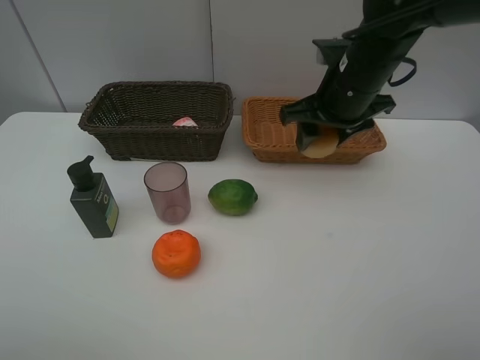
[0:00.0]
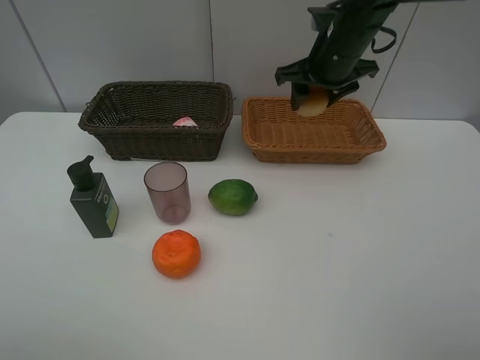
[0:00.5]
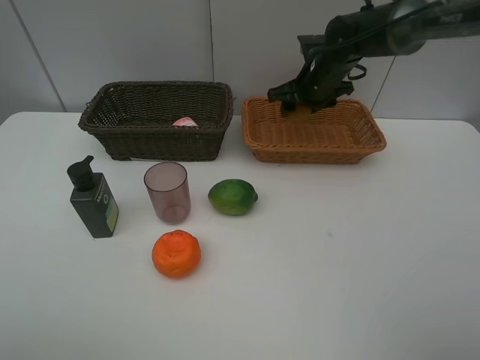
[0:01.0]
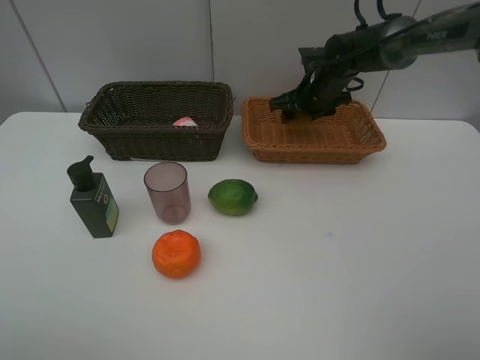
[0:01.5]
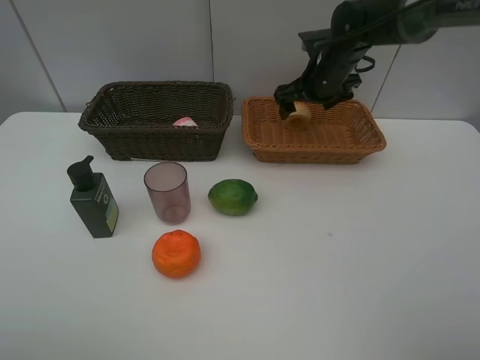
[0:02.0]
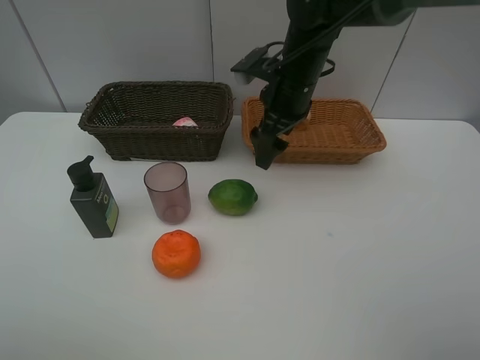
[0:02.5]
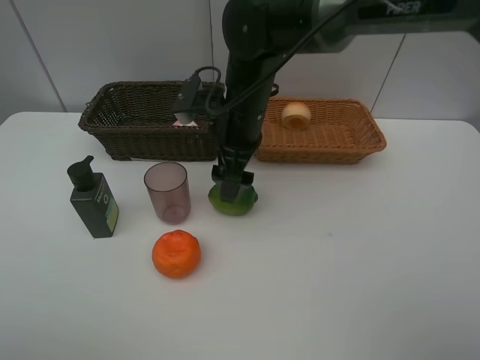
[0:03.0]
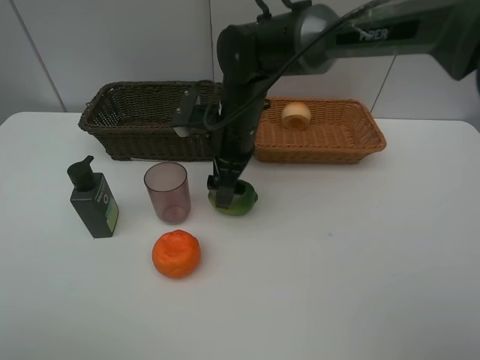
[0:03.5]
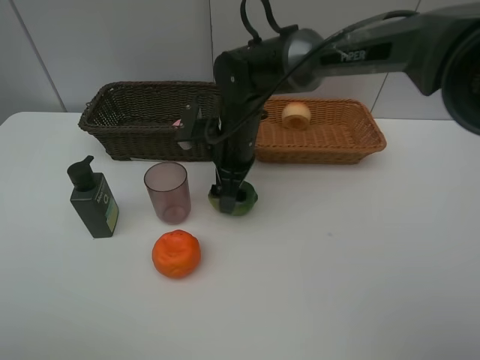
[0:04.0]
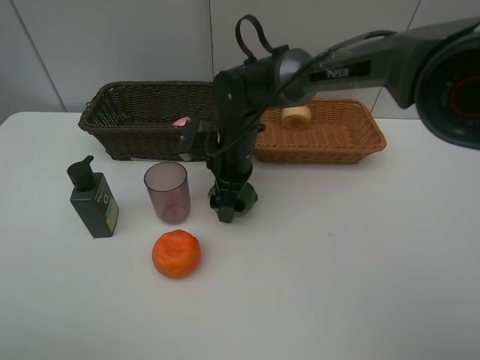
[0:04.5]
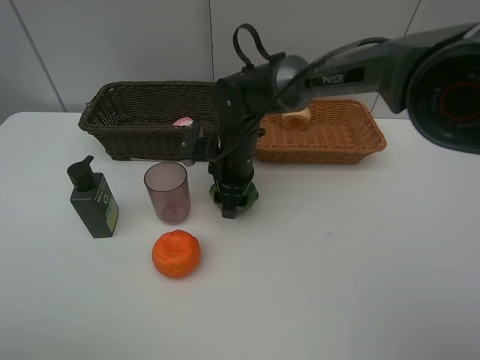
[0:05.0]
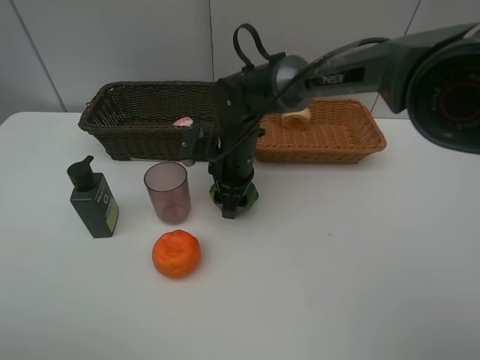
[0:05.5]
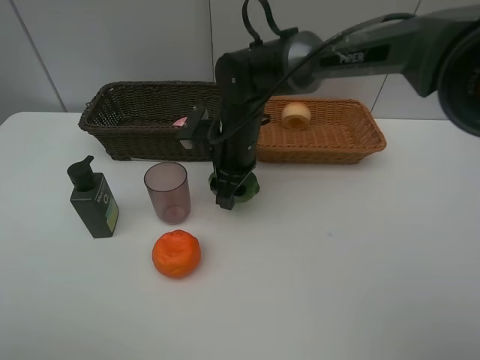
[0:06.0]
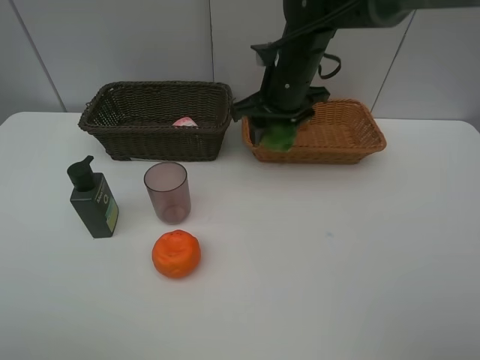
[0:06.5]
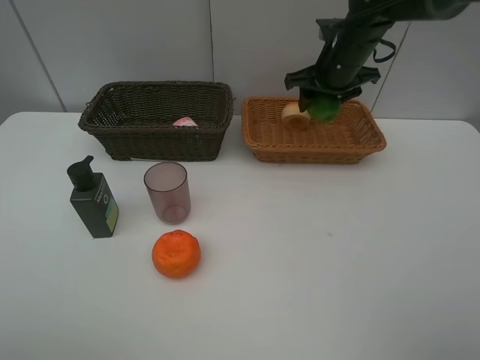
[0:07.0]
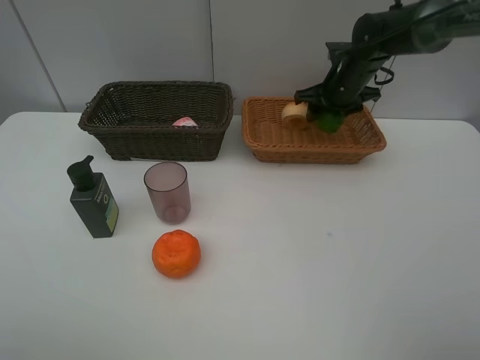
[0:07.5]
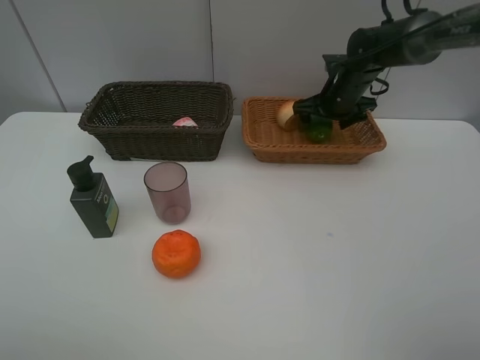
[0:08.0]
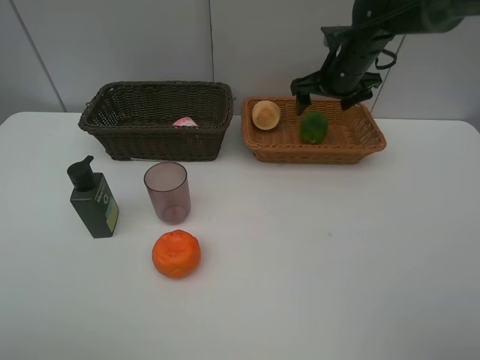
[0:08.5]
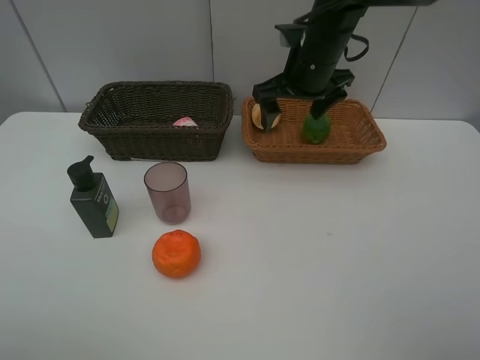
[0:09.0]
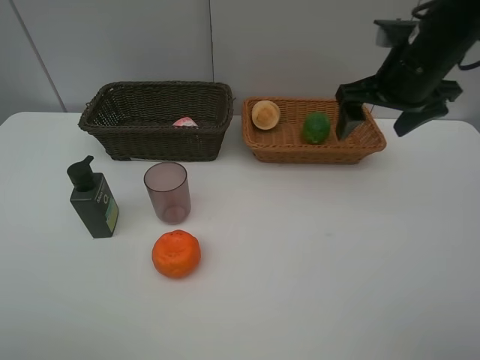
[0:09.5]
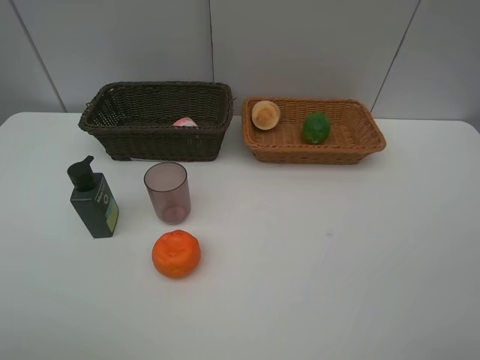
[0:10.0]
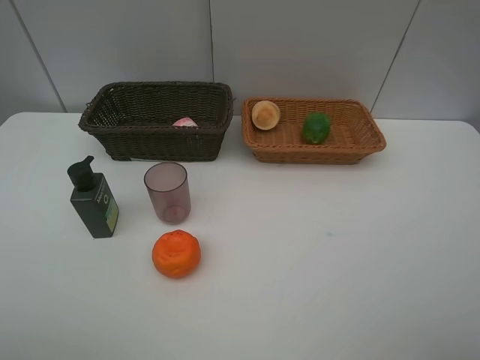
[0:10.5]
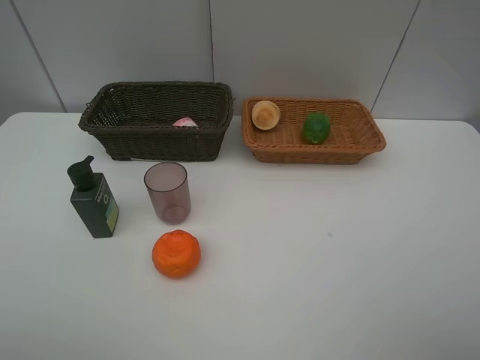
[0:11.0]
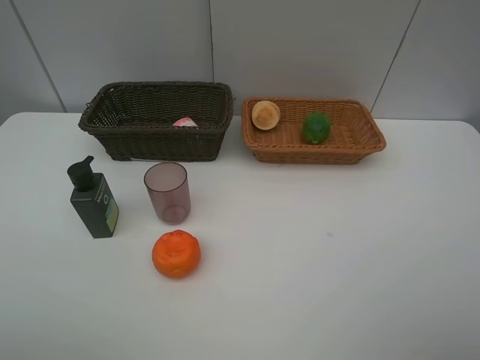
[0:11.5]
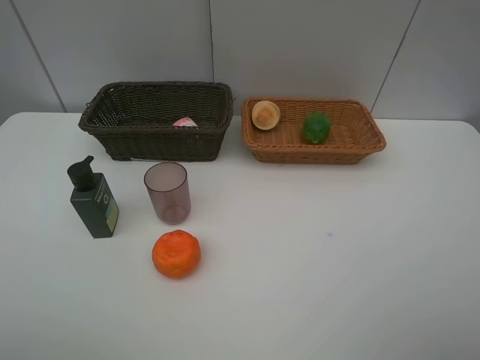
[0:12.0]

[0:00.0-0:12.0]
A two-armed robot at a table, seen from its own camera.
Task of the whole recording: place multiple objects separately in different baskets.
Step, 0:00.0 to 0:02.0: Place the bread in the light basket with right gripper.
Step, 0:02.5 to 0:06.0: Pick up the lime with right gripper.
Step, 0:06.5 to 0:08.5: Place the lime in the light basket with right gripper.
0:00.0 to 0:02.0: The right gripper goes approximately 10 cm forward, and opens up.
0:02.0 to 0:04.0: The right gripper shifts roughly 20 cm to the left, backward and downward.
0:04.0 to 0:06.0: The right gripper closes its fingers.
0:06.0 to 0:08.0: The right gripper moves to the right and forward, roughly 25 cm, and opens its fingers.
0:08.0 to 0:10.0: The right gripper moves backward and upward, approximately 40 cm.

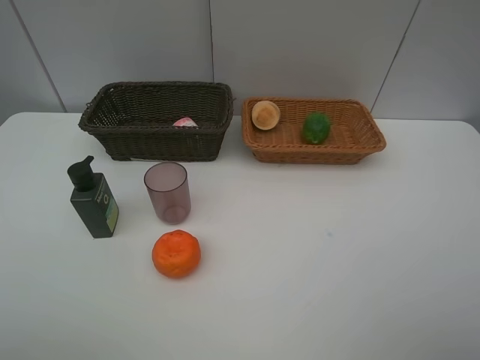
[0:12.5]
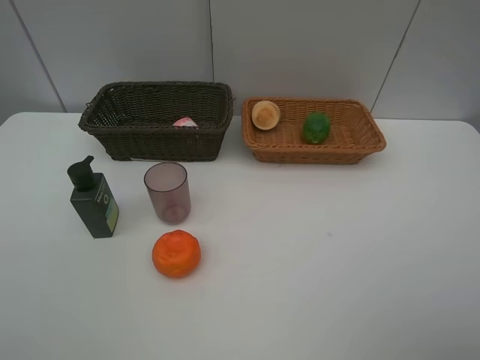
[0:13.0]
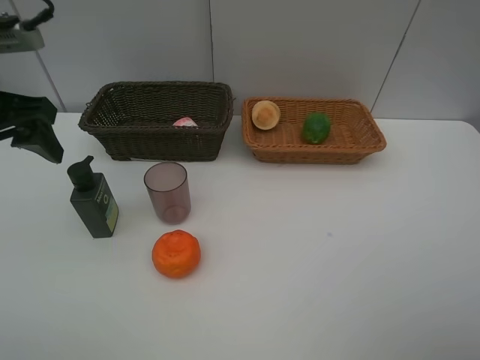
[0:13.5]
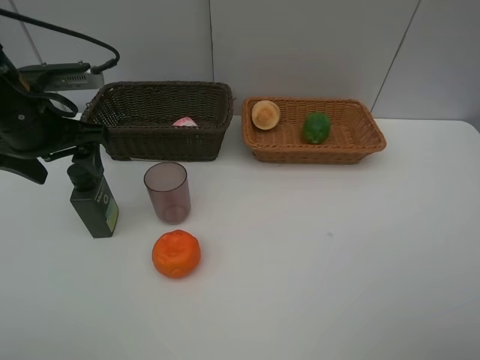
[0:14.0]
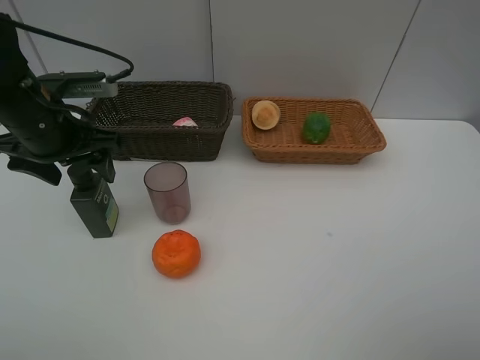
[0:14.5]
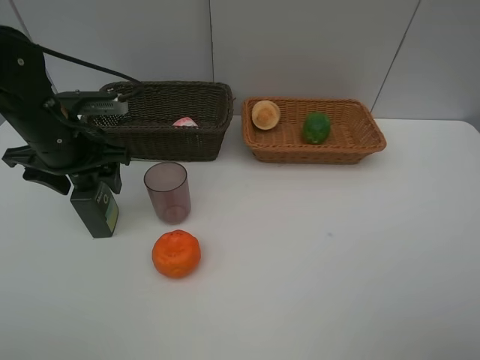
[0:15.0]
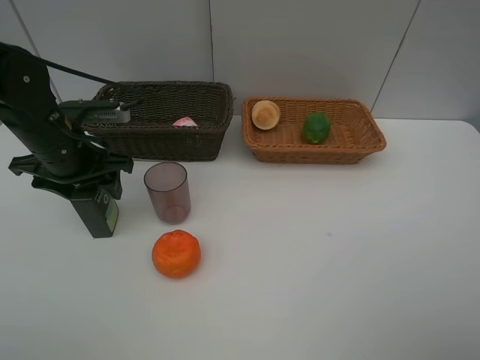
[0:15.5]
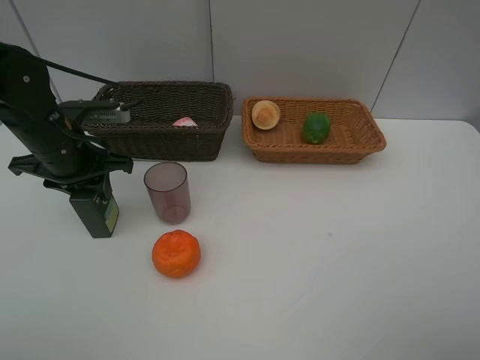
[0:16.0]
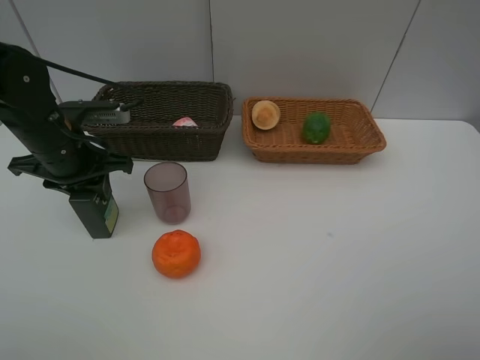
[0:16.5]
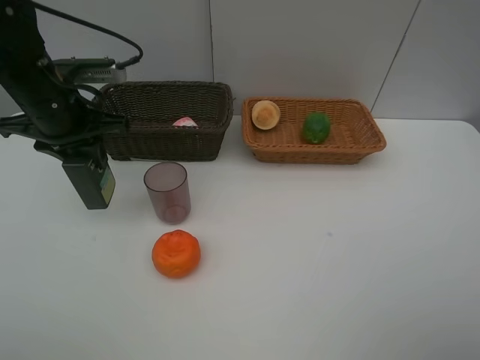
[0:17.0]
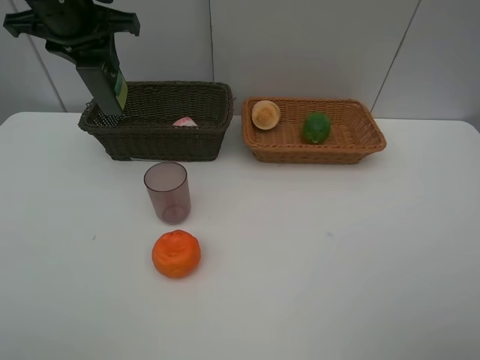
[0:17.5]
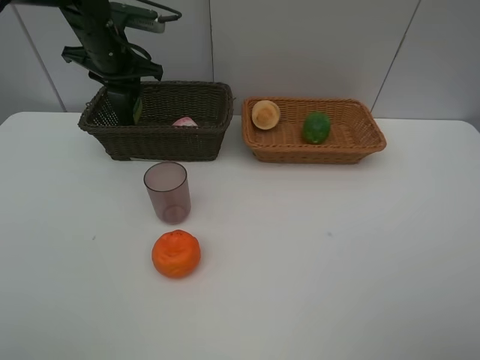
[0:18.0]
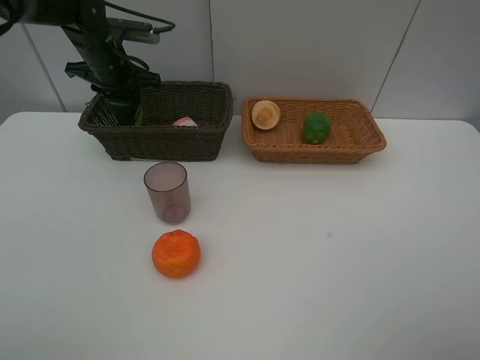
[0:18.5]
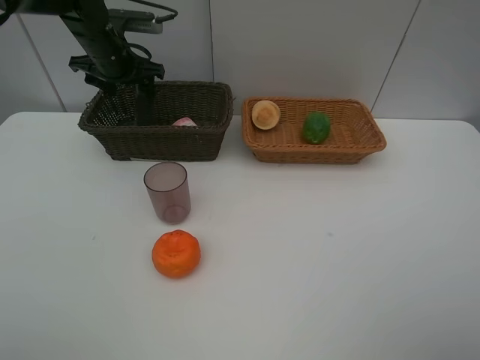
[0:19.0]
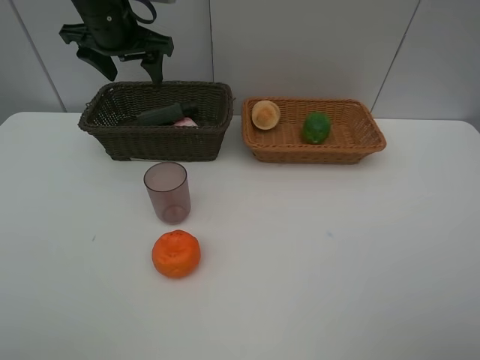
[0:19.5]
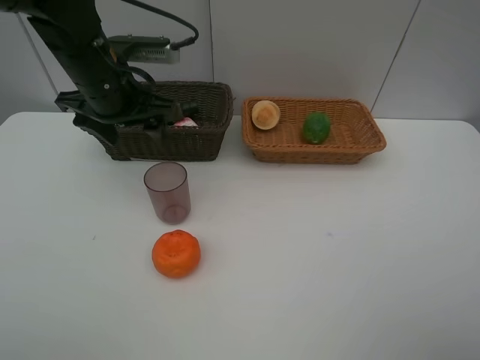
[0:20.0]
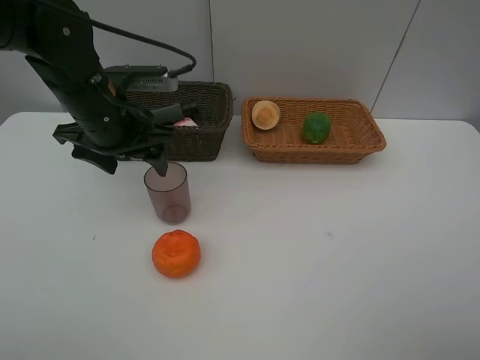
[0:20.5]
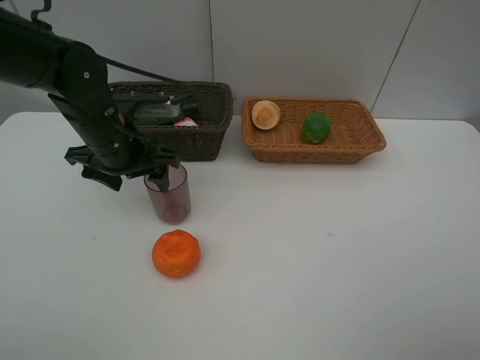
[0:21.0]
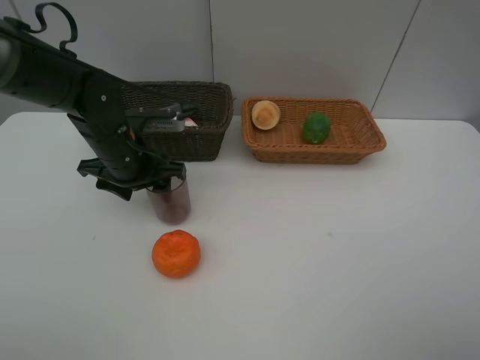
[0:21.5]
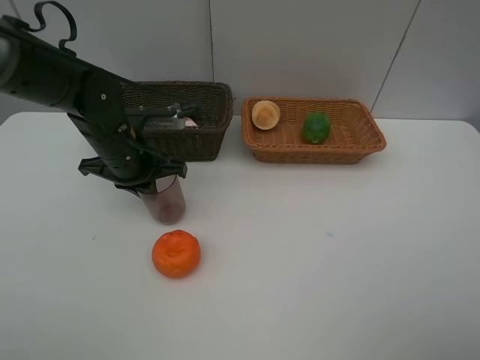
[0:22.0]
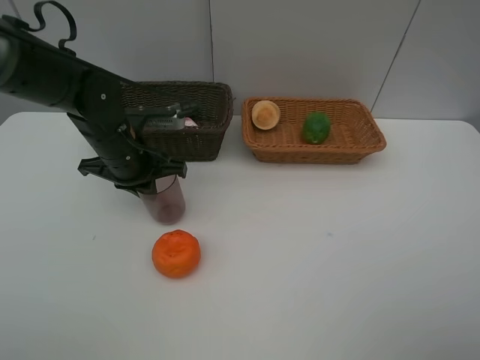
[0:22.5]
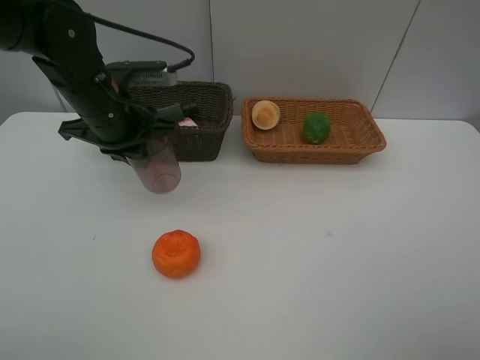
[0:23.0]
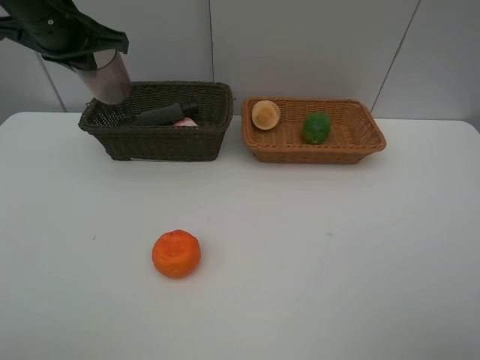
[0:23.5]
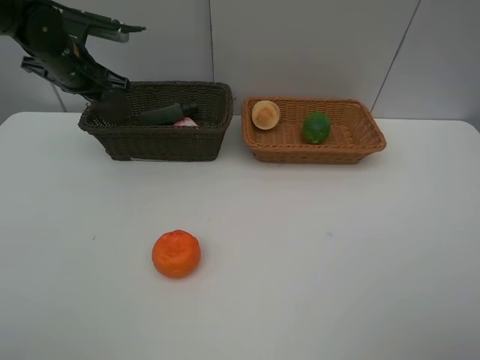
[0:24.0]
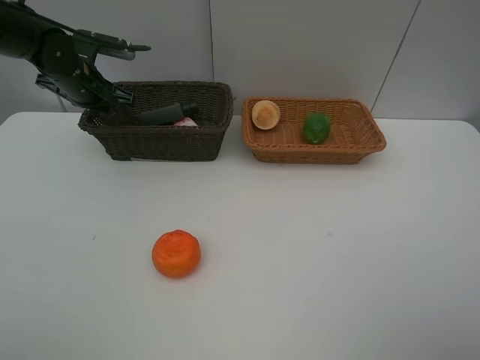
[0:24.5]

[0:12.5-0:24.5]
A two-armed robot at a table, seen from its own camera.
Task of the whole recording: place multiple objects separately in different baskets.
Step, 0:12.5 to 0:16.5: Pick up the facial cleanser with left gripper.
Step, 0:17.0 to 0:19.0: Place the facial cleanser in the dark basket with left gripper.
Step, 0:19.5 to 0:22.5: Pick up the brown cup with left gripper.
0:12.5 to 0:14.5: The left gripper is displaced forward by about 30 cm.
0:14.5 to 0:16.5: The left gripper closes up.
0:16.5 to 0:18.5: The left gripper shifts approximately 20 cm forward.
0:18.5 to 0:20.5: The left gripper shifts some 20 cm backward, and opens up.
0:20.5 to 0:22.5: The left gripper travels downward by some 5 cm, and closes.
0:22.5 to 0:24.5: The left gripper heads forward and to the left, covering about 15 cm, and travels upward and back again, about 15 cm each way.

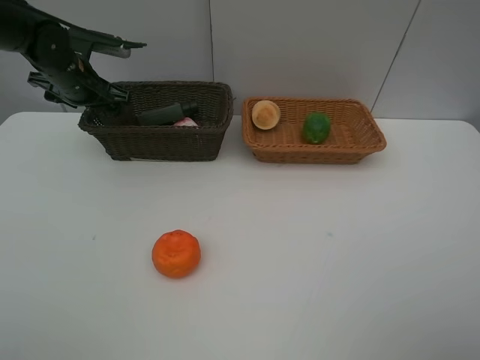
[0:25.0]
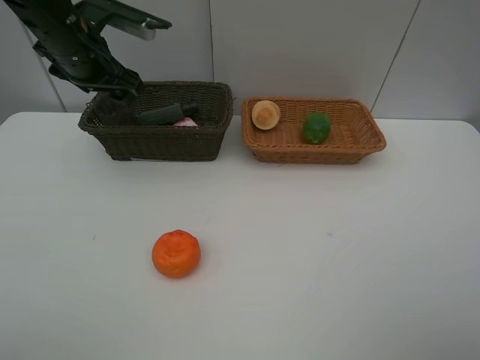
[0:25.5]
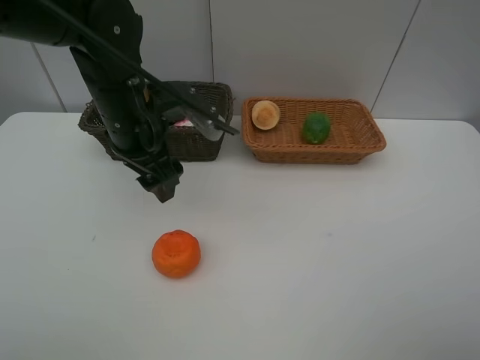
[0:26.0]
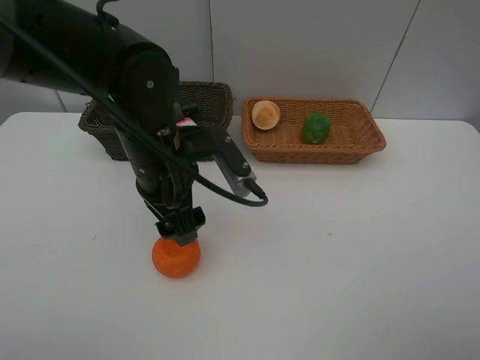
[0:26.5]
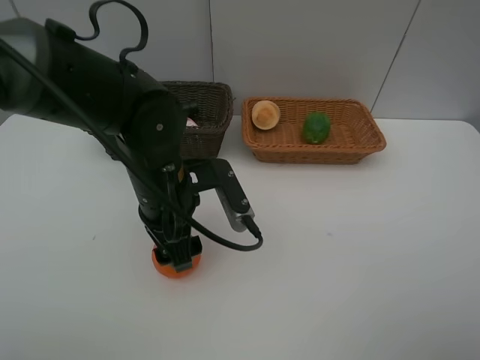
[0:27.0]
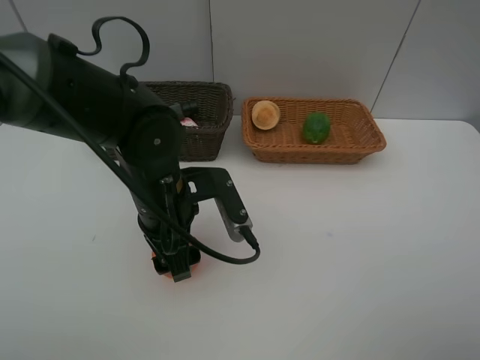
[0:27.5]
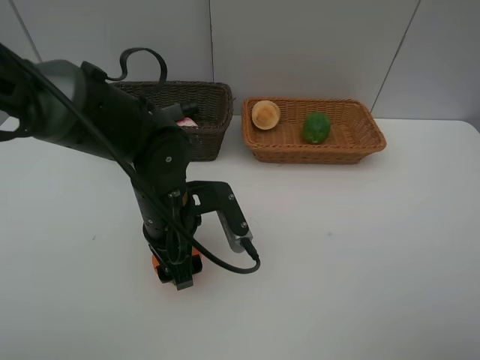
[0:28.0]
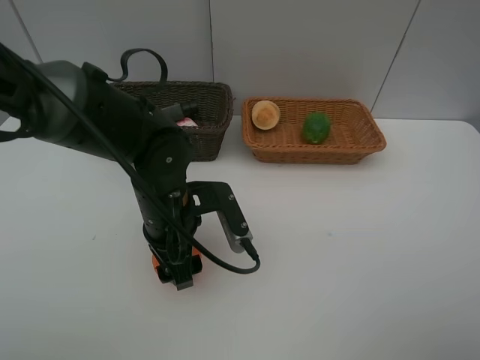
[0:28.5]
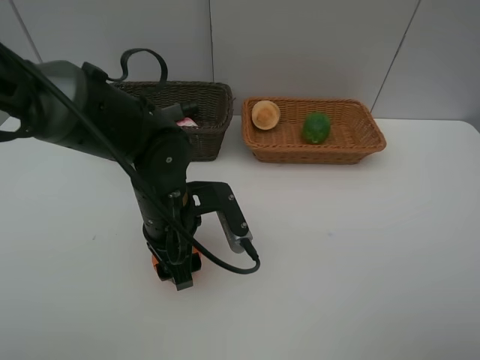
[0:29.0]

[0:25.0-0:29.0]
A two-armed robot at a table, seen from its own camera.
Task of the whole recording: place multiple objects separately in different baskets.
0:25.0 to 0:27.0: The left gripper is displaced backward and to the right by some 25 cm.
0:27.0 to 0:29.0: There are only small adjustments of the grippers.
